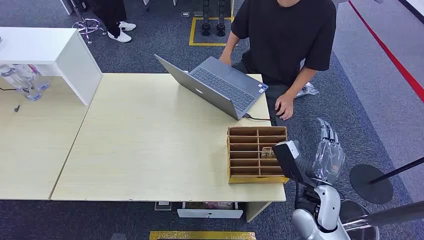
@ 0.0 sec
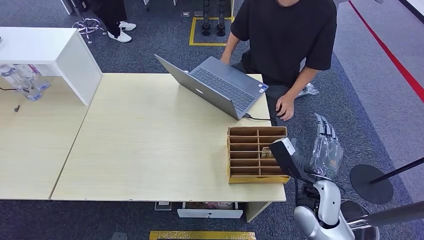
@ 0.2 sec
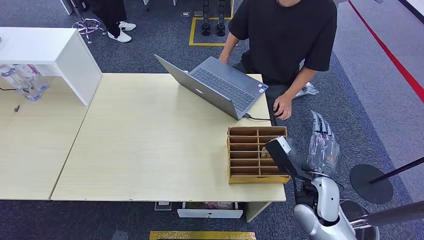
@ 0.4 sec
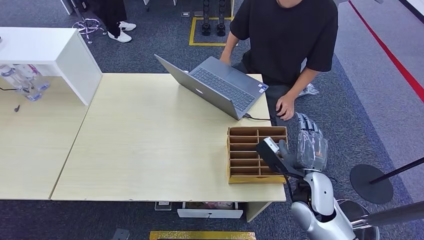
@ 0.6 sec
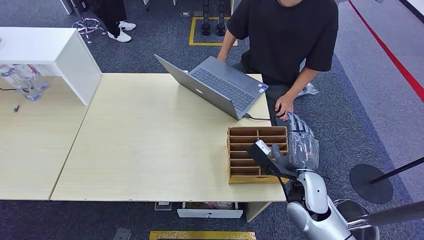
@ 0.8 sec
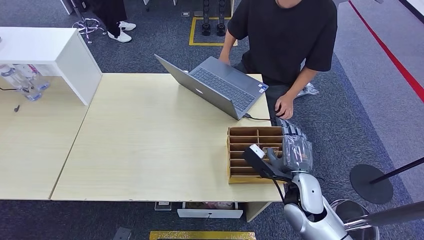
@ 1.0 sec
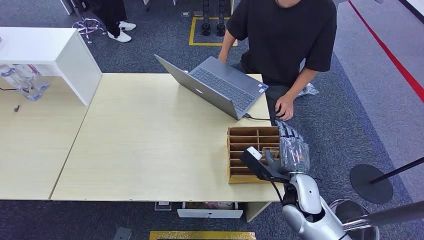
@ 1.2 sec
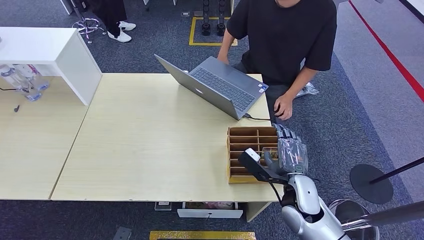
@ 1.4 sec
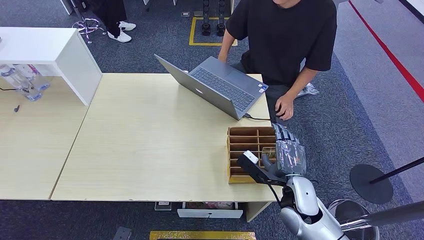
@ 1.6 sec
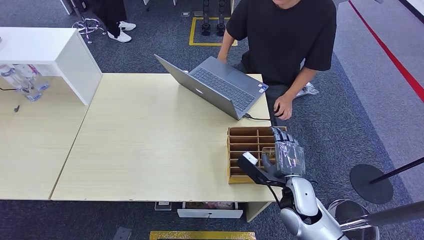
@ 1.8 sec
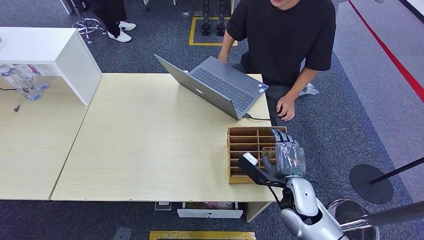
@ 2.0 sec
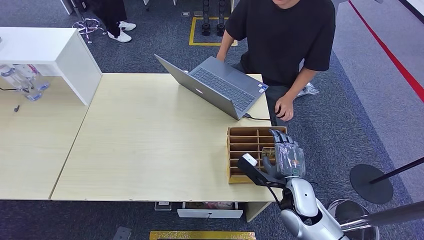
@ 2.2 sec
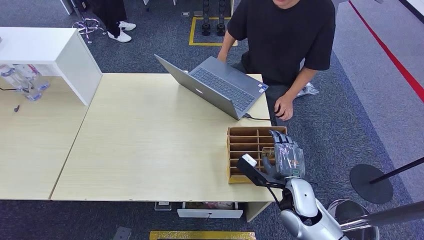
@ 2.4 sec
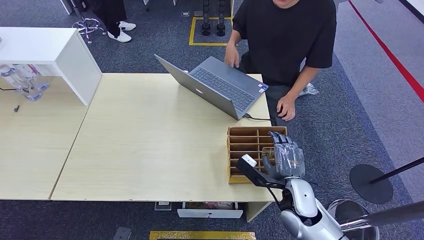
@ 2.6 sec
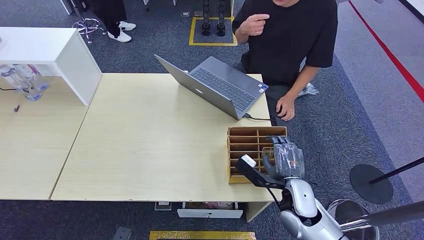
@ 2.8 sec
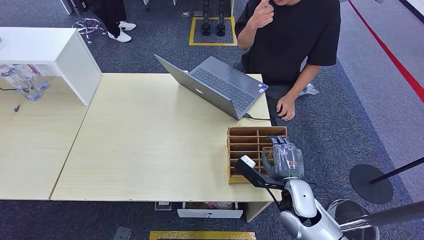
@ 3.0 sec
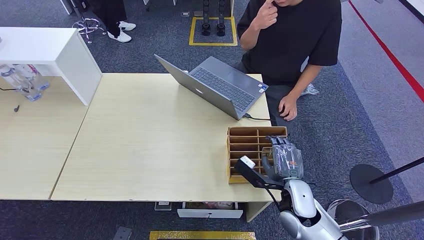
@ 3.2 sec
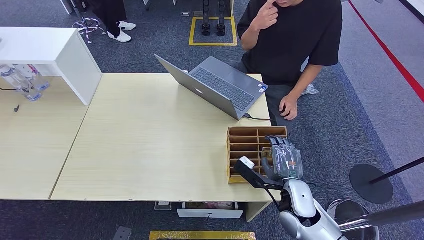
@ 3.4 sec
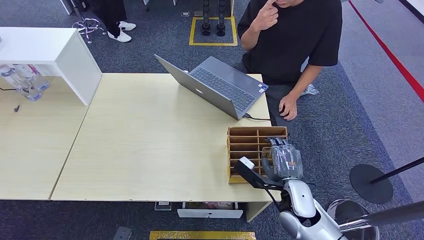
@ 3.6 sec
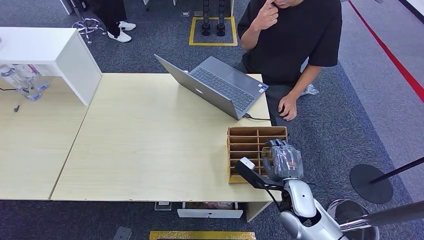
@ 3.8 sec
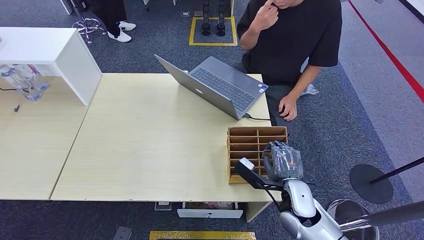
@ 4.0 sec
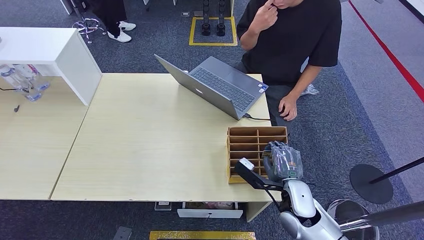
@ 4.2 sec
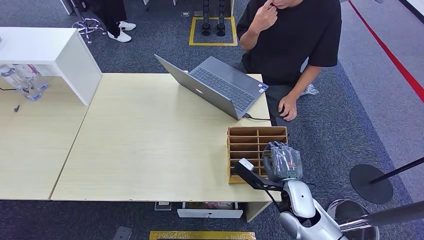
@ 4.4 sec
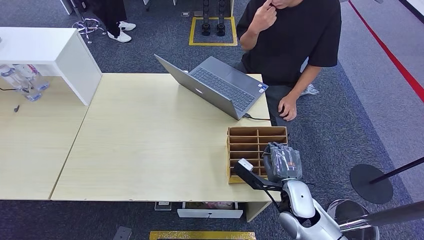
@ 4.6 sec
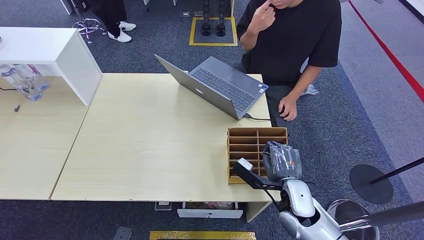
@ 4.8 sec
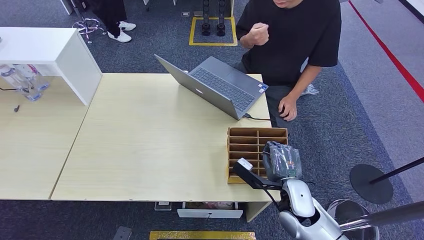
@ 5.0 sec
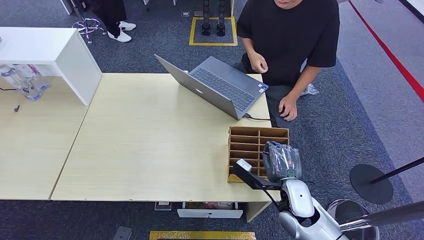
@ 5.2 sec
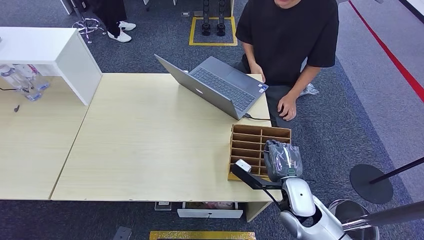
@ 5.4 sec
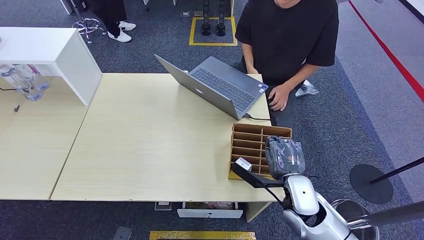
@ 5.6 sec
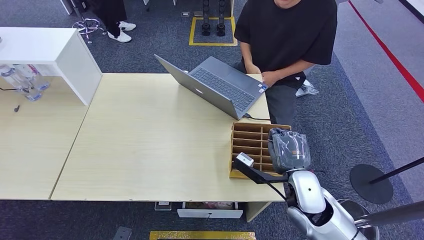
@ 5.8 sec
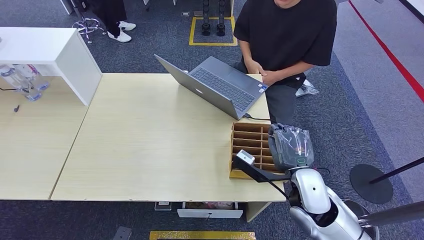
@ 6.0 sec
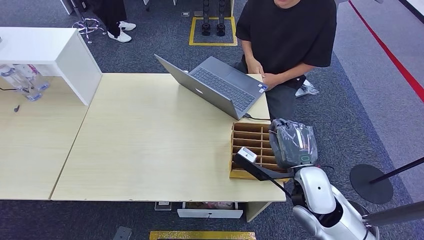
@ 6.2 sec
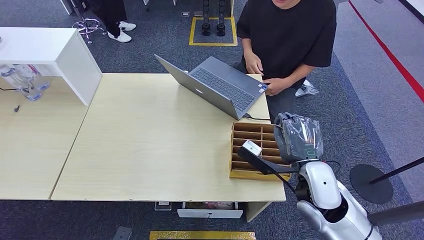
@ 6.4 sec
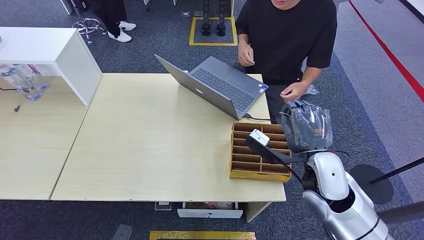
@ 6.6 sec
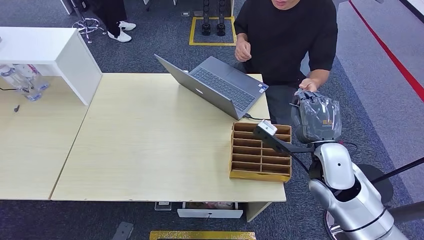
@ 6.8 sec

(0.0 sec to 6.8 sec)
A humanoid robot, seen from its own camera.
Step, 0.0 sec - 6.4 sec: Pick up the key card from the card box.
Step, 6.6 sec - 6.8 sec: Hand the key card to the target.
1.4 sec - 2.8 sec: Both hands stay about where they are.
2.8 sec - 4.0 sec: Both hands stay about where they are.
4.0 sec - 5.4 sec: There are only small adjustments of the hands.
5.4 sec - 6.8 sec: The right hand travels upward by approximately 10 cm.
